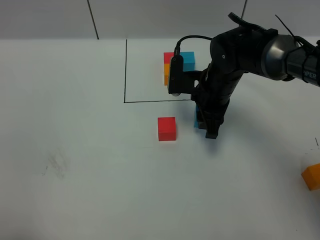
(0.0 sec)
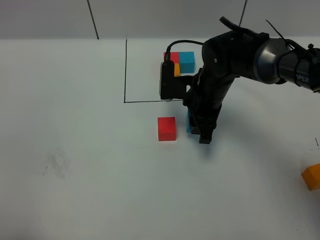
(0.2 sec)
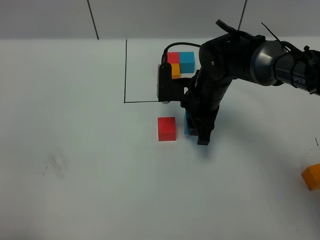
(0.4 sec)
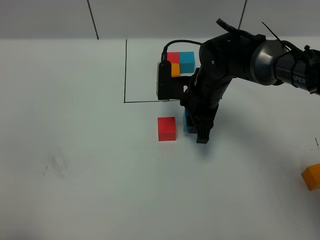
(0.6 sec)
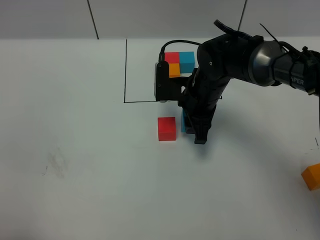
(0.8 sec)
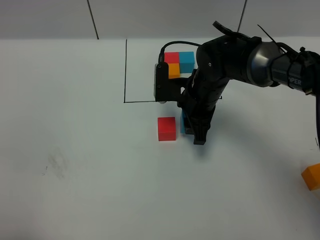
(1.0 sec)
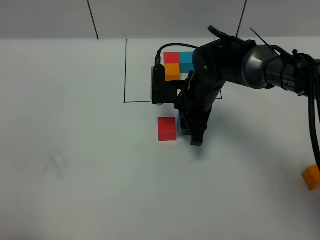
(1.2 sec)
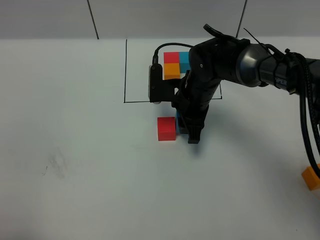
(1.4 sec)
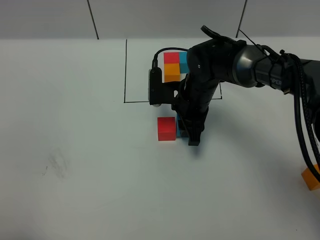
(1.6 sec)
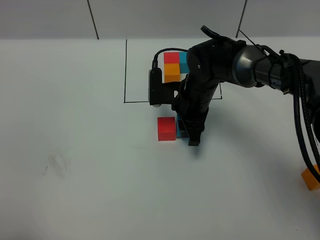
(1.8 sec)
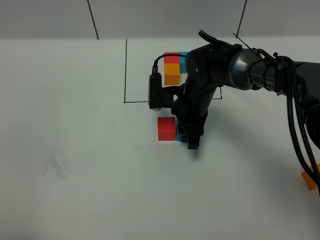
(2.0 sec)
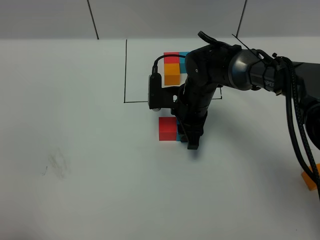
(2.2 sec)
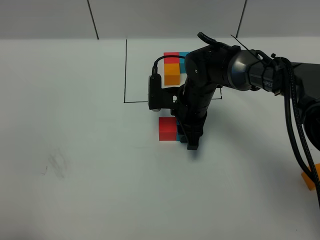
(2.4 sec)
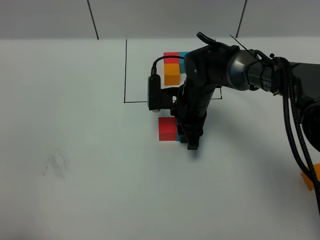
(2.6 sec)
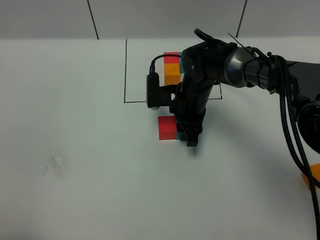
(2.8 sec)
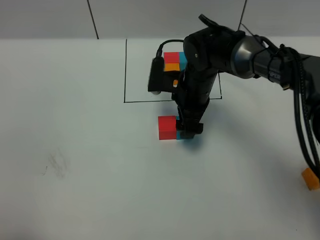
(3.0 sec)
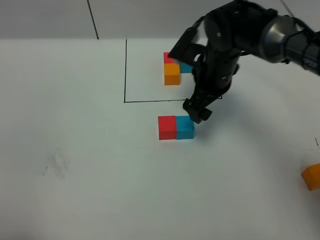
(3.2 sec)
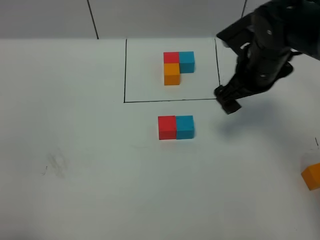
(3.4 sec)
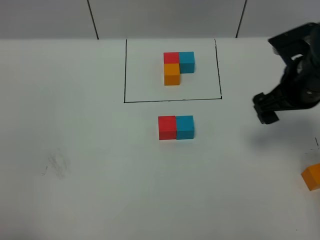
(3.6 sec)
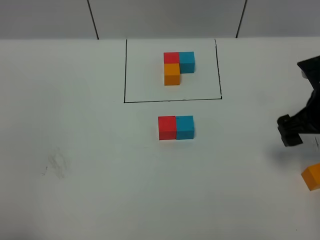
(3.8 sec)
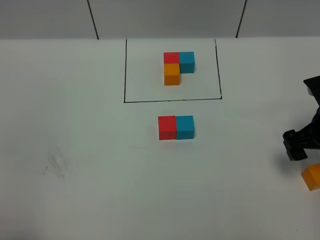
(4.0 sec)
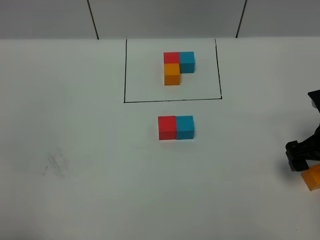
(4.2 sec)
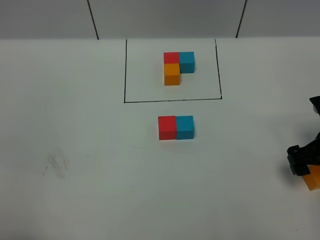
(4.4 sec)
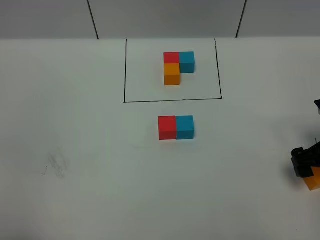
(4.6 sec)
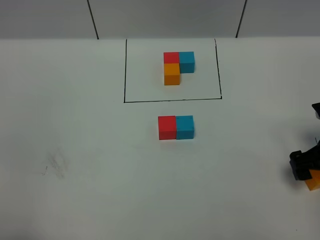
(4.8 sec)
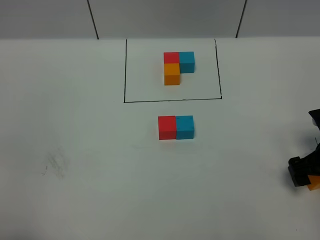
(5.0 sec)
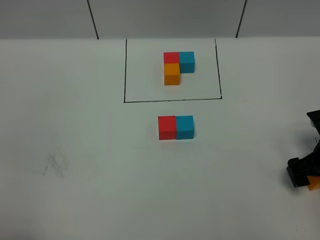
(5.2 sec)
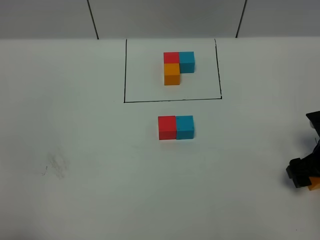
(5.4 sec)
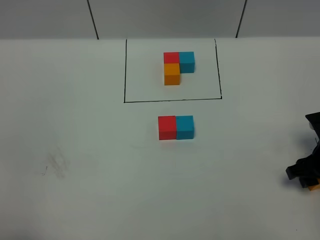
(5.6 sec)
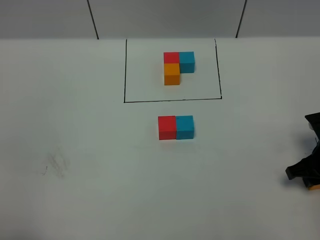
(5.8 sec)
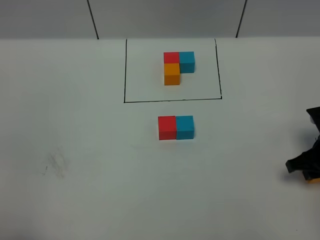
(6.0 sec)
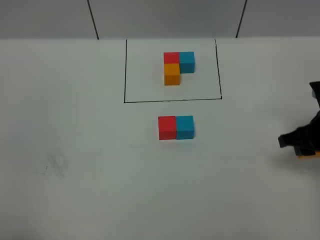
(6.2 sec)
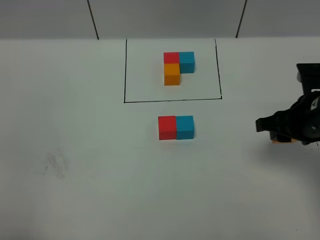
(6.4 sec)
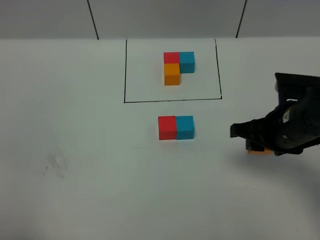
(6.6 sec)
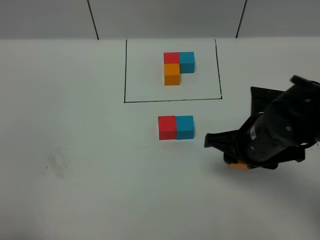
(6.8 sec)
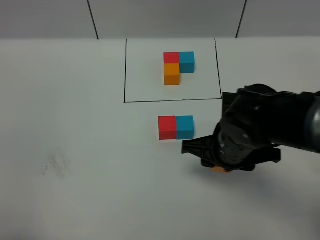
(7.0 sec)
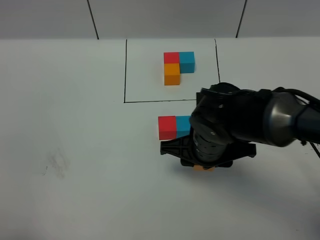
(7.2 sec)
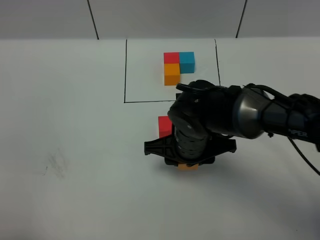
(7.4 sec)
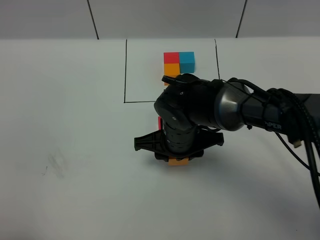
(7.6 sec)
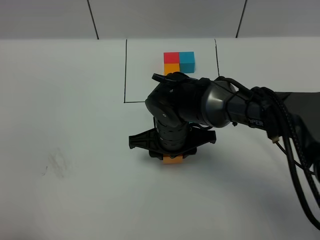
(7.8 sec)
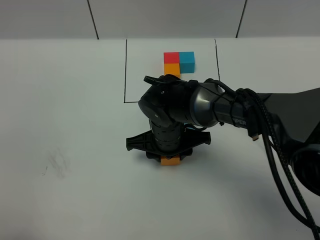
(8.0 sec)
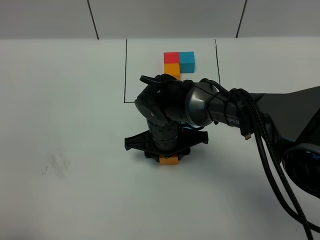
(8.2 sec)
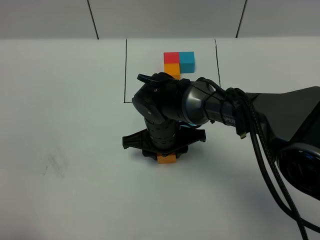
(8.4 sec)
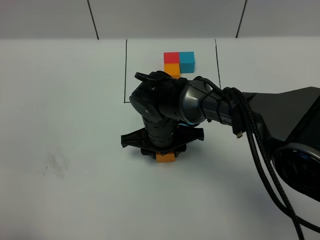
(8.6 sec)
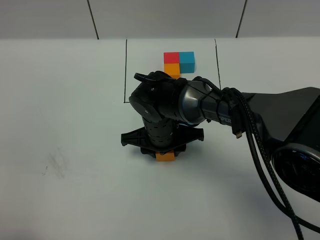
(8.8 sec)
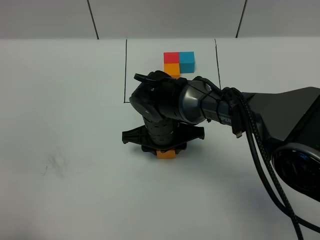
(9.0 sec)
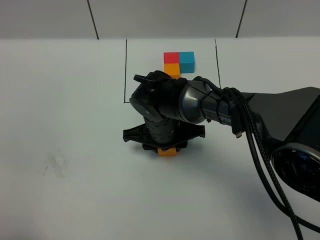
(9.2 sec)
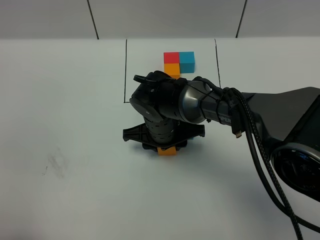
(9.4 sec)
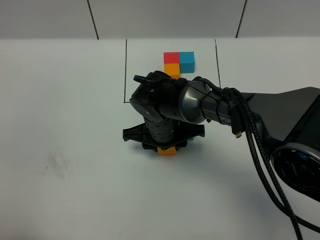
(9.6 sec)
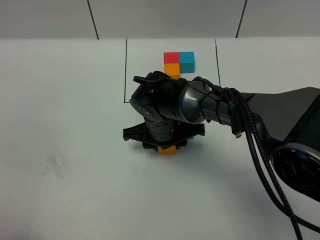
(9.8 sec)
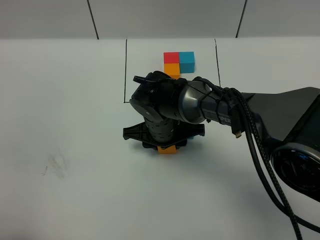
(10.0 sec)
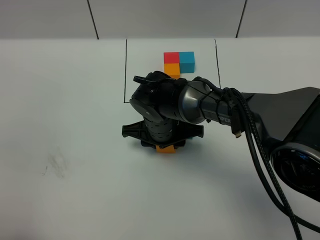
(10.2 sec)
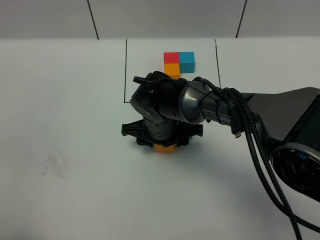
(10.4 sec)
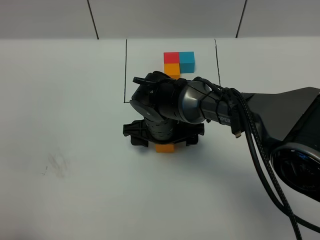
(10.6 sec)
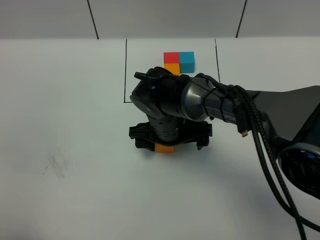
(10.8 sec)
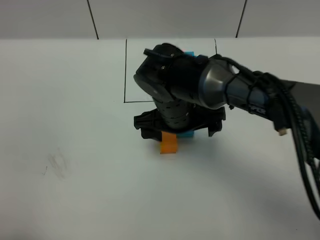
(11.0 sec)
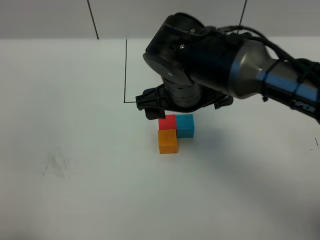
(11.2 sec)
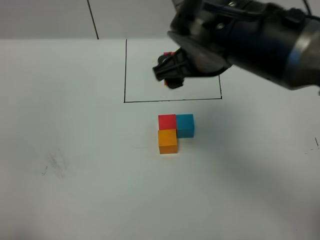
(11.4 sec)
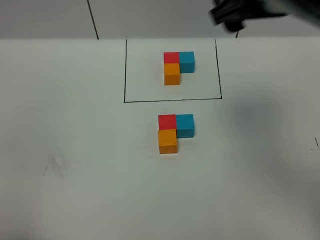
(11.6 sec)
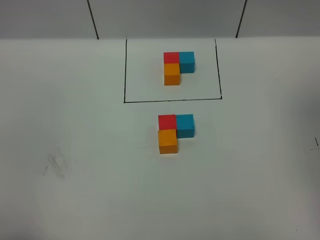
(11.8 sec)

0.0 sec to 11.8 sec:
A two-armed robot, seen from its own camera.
Task of the whole recording: According to the building block template in front, assemble the scattered blocks together.
Step, 0.0 sec to 3.0 sec: Put the blue cube on the right of the red cube.
Step, 3.2 sec to 11.0 sec: Put the orange cube in the front of the red cube.
0.0 sec to 1.4 sec: There are only small adjustments of the grippers.
1.4 sec to 3.0 sec: The right gripper opens up.
3.0 sec to 4.4 sec: The right gripper shifts about 25 cm to the right and backward.
4.4 sec to 6.0 sec: The right gripper closes up.
6.0 sec to 7.4 sec: The right gripper heads to the left, covering approximately 25 cm.
7.4 sec to 8.8 sec: The right gripper ends up some 10 cm from where it was.
8.8 sec to 10.4 sec: The grippers make only small movements.
10.4 sec to 11.8 sec: The right gripper goes roughly 50 cm upward and to the right, and opens.

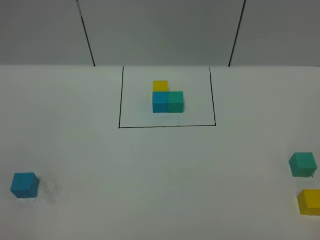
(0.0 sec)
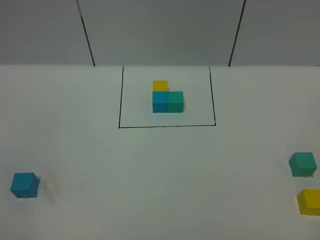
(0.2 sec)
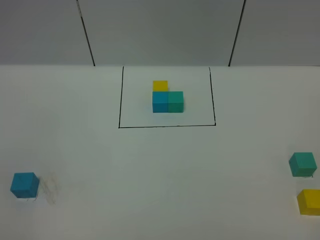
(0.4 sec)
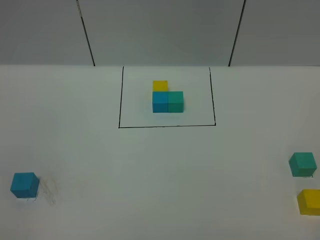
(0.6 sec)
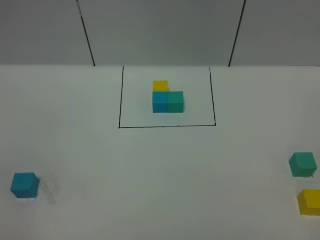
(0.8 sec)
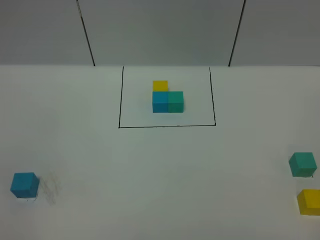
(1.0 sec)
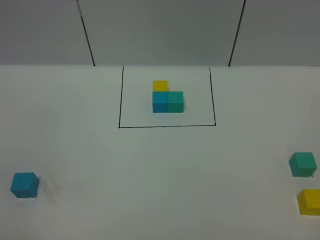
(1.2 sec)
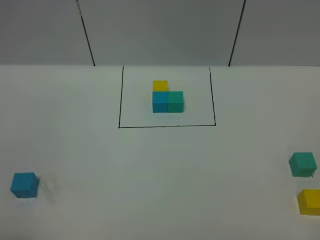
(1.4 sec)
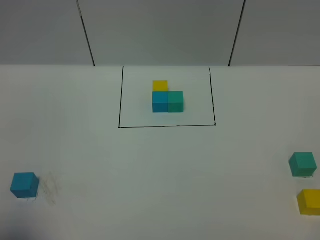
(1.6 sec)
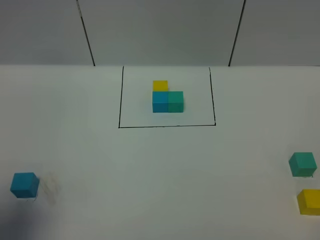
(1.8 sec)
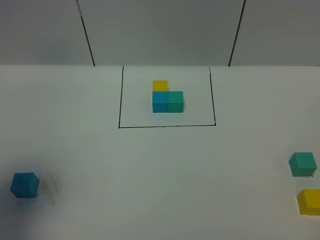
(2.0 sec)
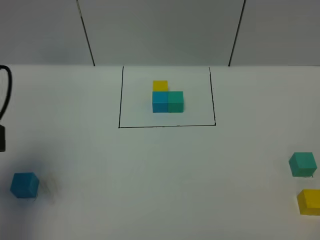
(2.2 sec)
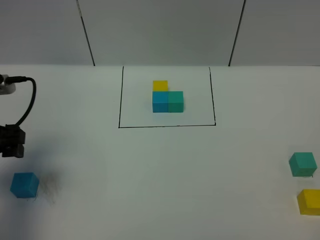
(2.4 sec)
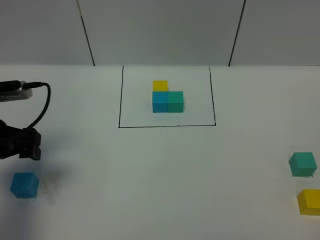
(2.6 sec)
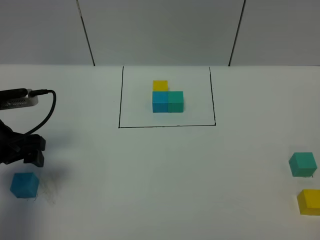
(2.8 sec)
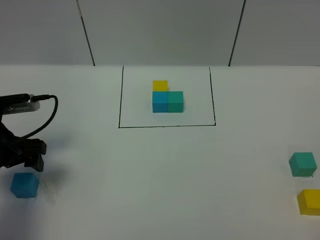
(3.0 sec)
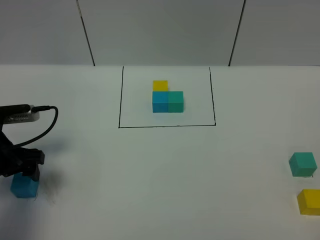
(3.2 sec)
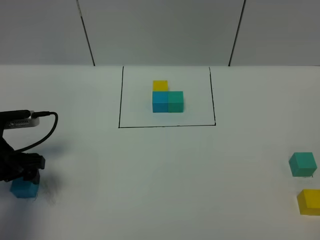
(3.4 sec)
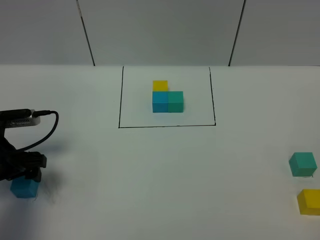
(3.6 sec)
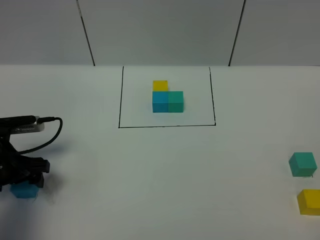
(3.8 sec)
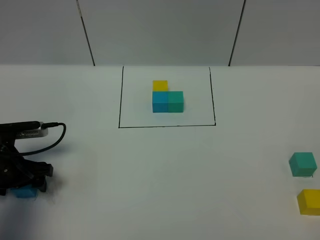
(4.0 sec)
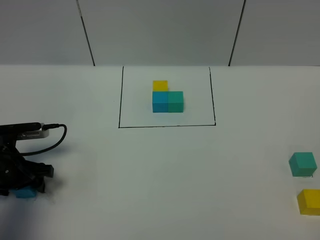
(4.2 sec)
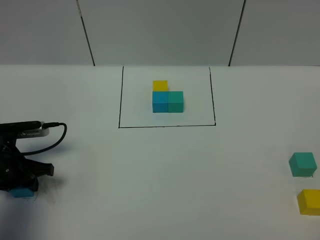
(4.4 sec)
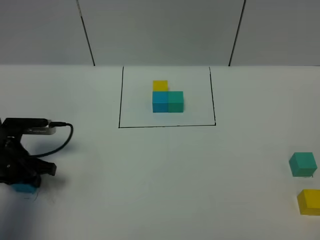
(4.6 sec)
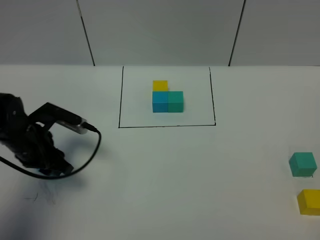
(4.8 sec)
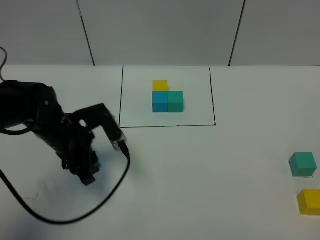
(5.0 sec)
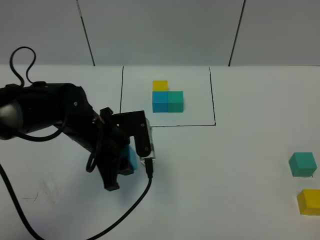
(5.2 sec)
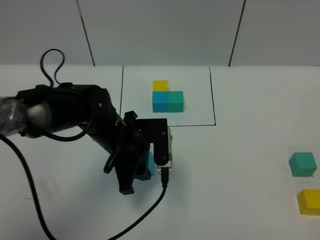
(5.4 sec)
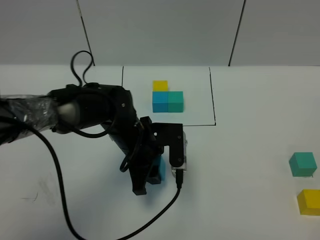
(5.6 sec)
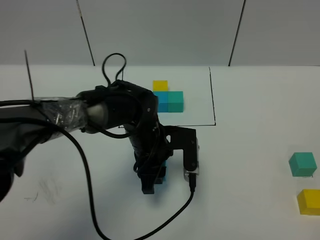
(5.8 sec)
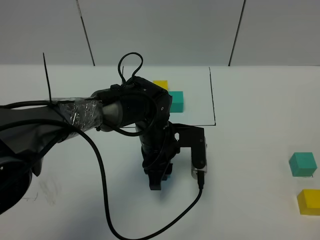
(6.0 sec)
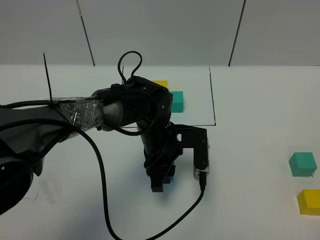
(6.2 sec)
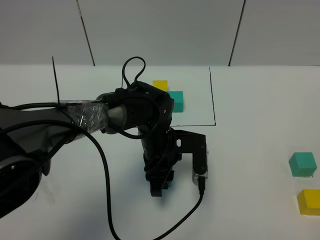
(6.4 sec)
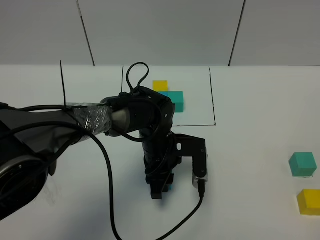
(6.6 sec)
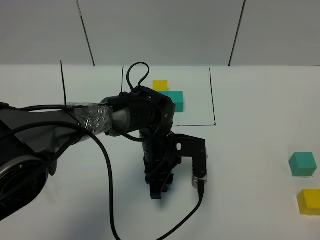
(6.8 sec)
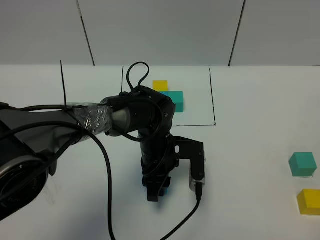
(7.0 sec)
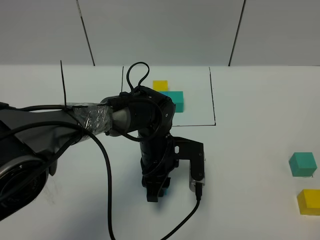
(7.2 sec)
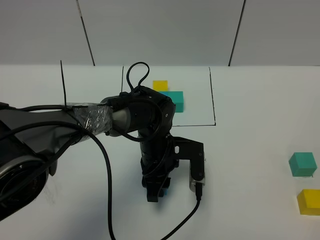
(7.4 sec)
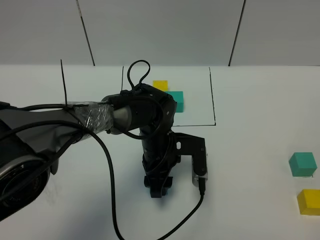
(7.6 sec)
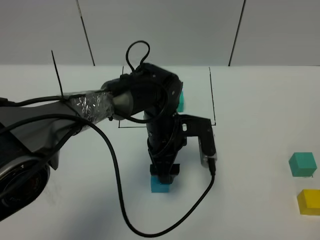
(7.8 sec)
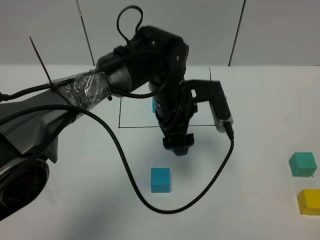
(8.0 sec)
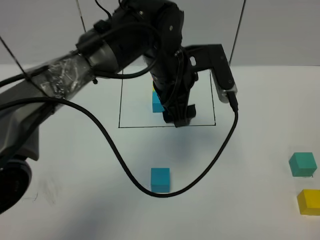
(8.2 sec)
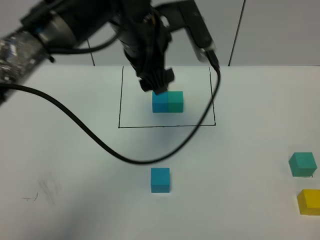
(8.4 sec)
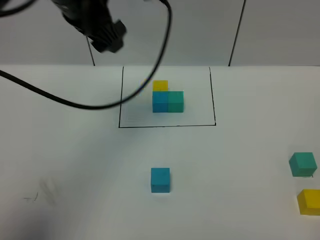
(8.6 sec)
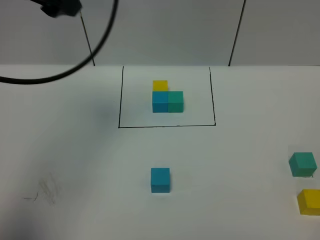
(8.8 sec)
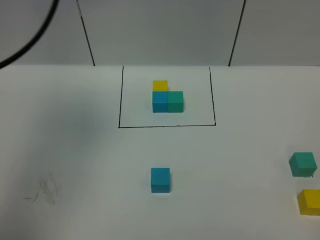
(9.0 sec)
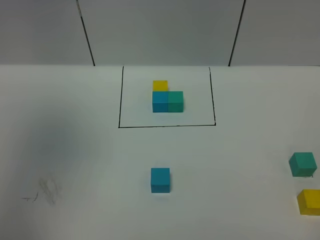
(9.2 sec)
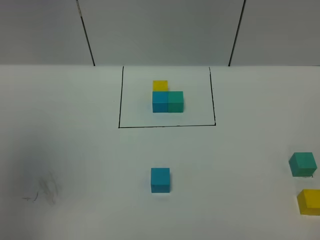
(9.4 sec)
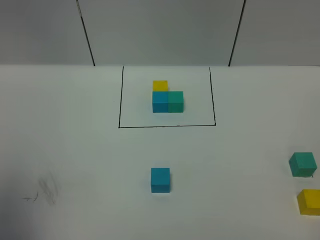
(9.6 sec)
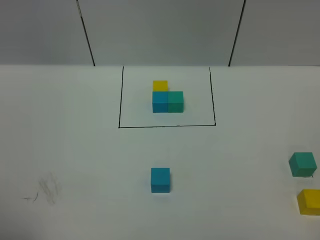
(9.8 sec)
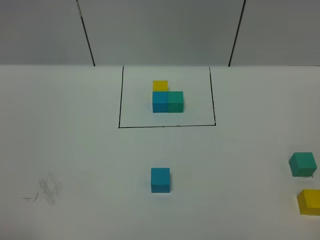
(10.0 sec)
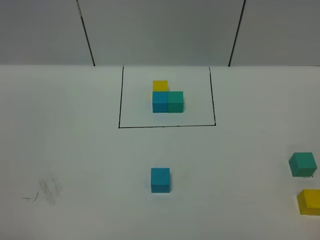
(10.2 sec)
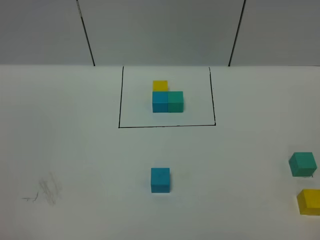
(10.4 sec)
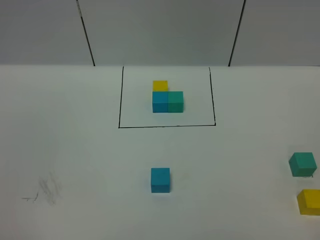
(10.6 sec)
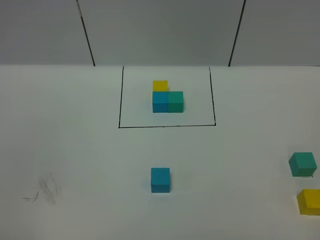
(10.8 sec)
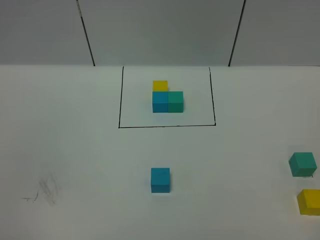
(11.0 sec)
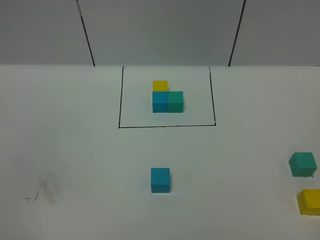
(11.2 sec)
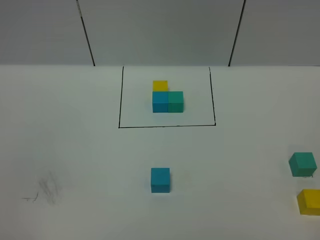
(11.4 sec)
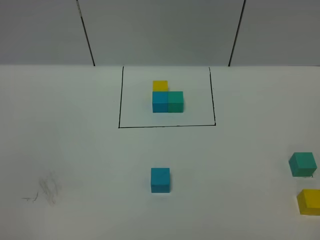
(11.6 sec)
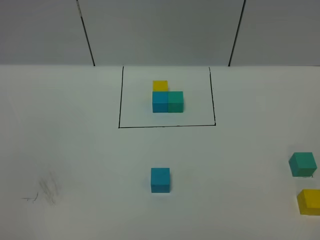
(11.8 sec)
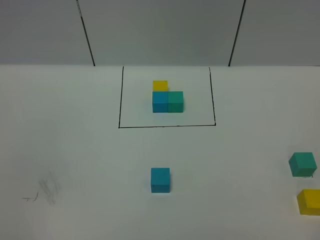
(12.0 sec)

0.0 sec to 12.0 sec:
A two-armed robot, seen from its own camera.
Task of the whole recording: According to the building block template in front, assemble the scattered blocks together.
Step, 2.2 sec to 8.0 sec: Put the blue cube in the center of the table.
1.6 sec to 3.0 sec: The left gripper is displaced forward and downward by roughly 25 cm.
3.0 sec to 4.4 sec: The left gripper travels downward by some 5 cm, and closes its fingers.
4.4 sec to 6.0 sec: The left gripper travels to the right by roughly 30 cm.
6.0 sec to 7.6 sec: The left gripper opens its fingers.
7.6 sec to 9.0 sec: The left gripper shifts about 50 cm upward and to the left, and opens up.
9.0 sec to 10.4 sec: The left gripper moves backward, approximately 35 cm.
